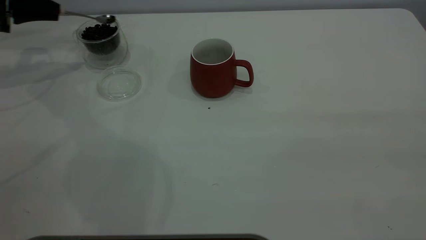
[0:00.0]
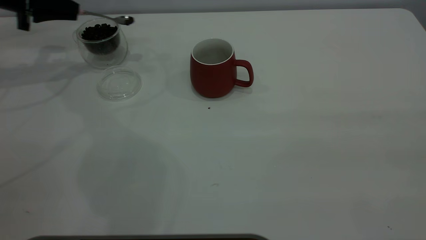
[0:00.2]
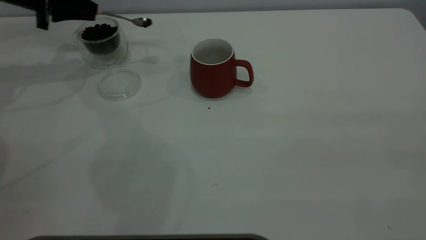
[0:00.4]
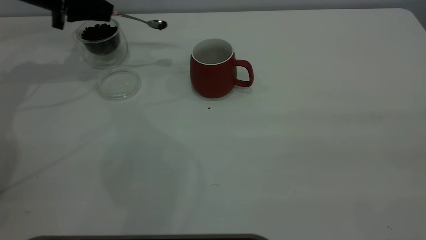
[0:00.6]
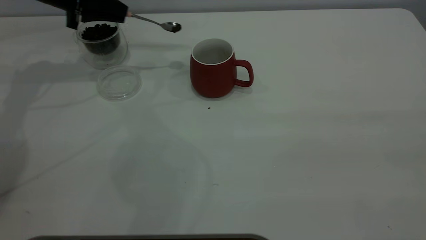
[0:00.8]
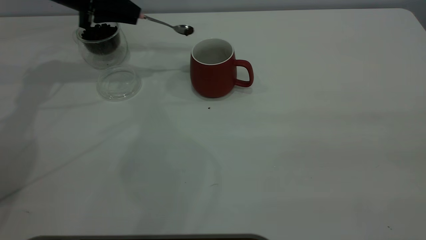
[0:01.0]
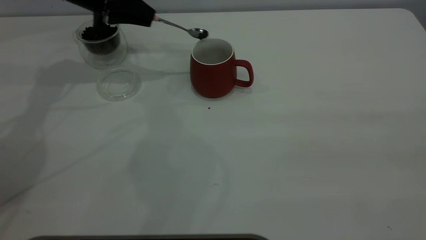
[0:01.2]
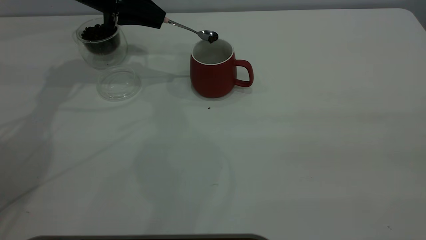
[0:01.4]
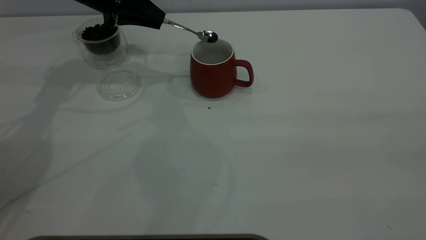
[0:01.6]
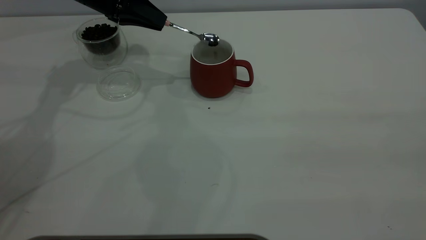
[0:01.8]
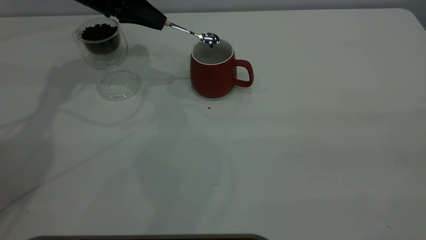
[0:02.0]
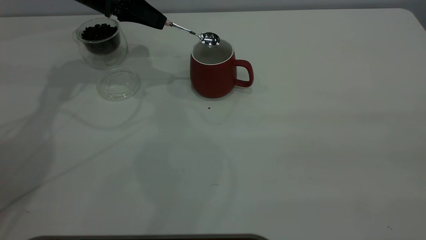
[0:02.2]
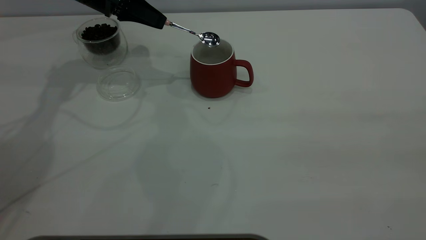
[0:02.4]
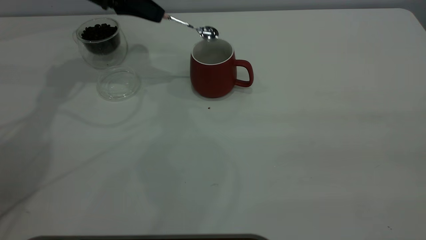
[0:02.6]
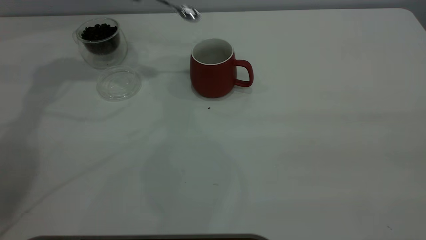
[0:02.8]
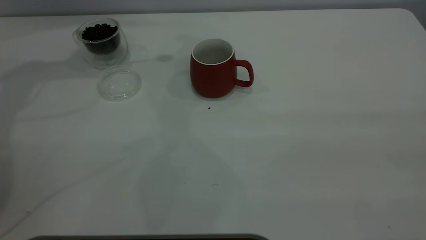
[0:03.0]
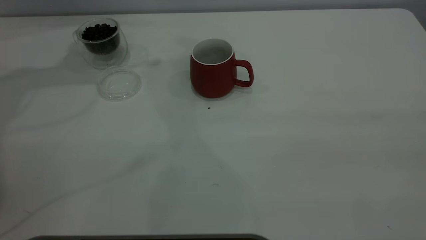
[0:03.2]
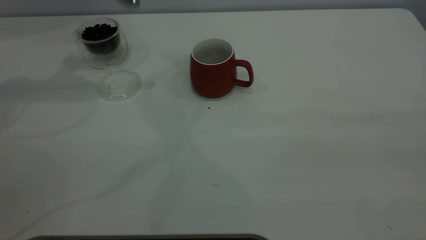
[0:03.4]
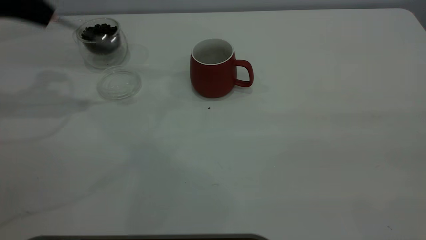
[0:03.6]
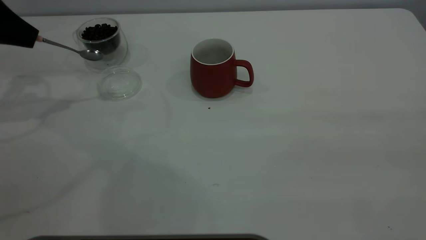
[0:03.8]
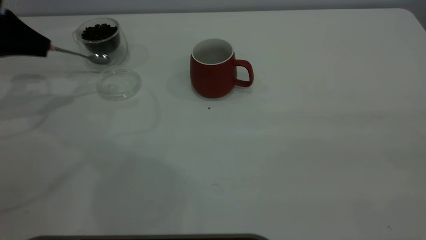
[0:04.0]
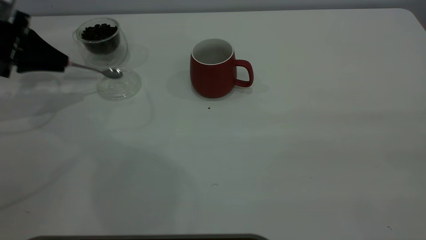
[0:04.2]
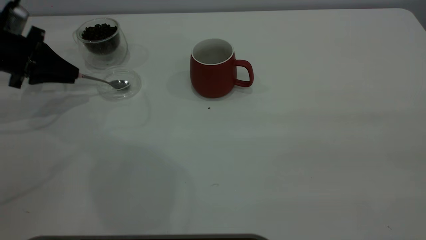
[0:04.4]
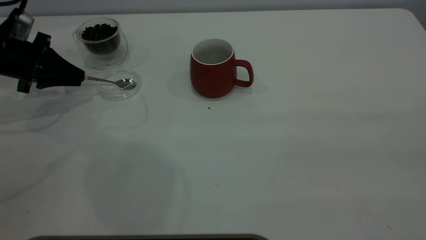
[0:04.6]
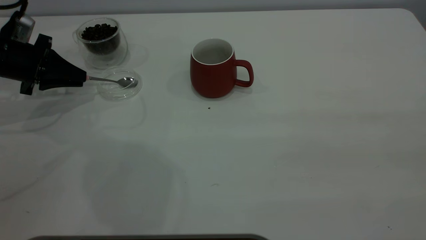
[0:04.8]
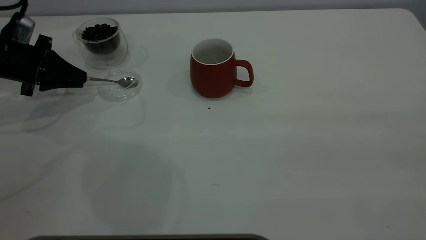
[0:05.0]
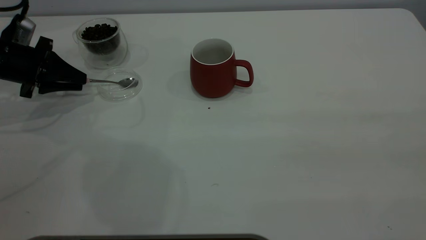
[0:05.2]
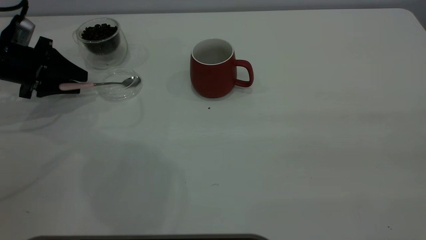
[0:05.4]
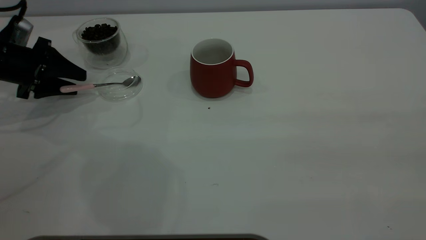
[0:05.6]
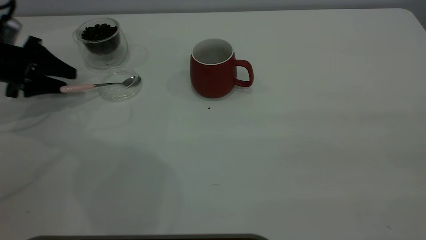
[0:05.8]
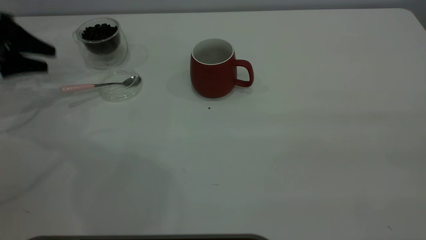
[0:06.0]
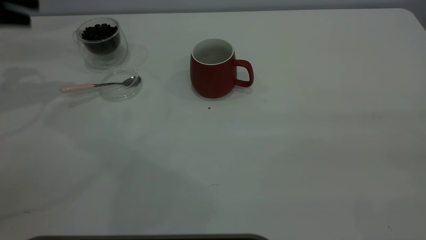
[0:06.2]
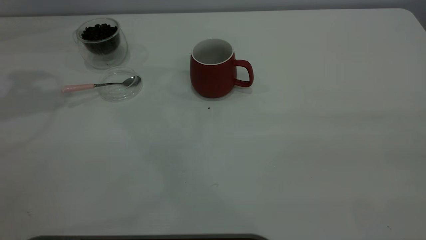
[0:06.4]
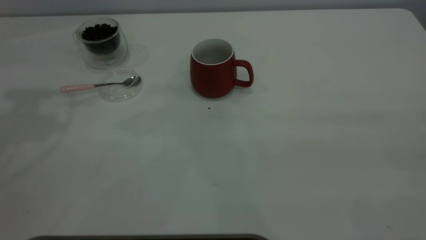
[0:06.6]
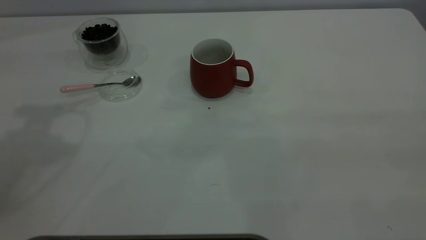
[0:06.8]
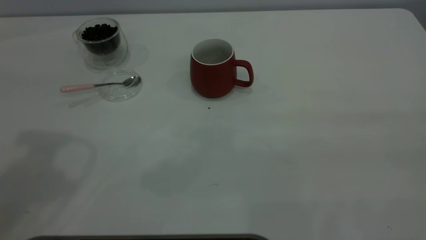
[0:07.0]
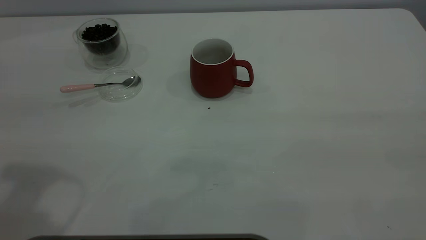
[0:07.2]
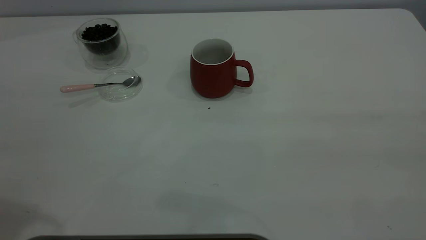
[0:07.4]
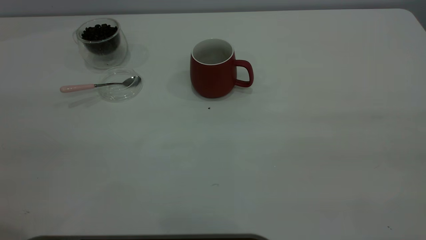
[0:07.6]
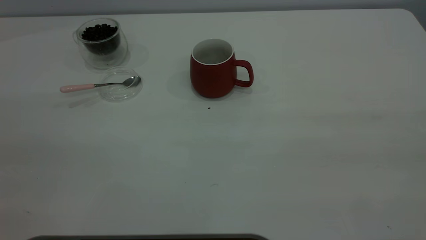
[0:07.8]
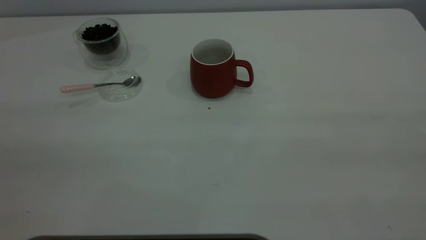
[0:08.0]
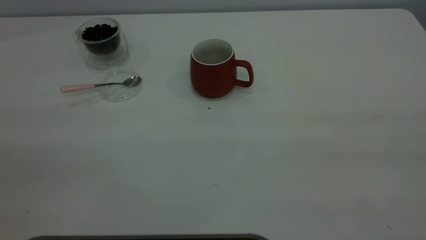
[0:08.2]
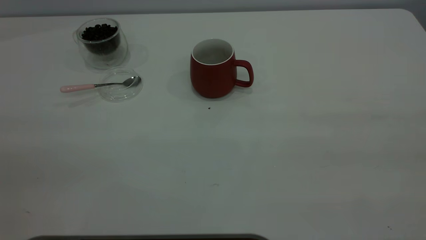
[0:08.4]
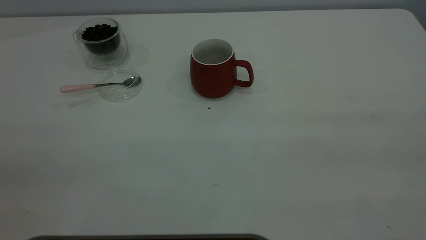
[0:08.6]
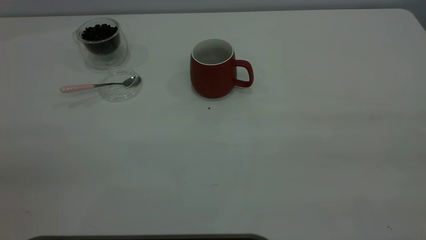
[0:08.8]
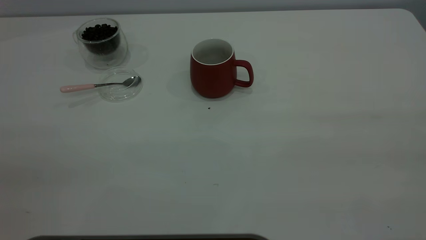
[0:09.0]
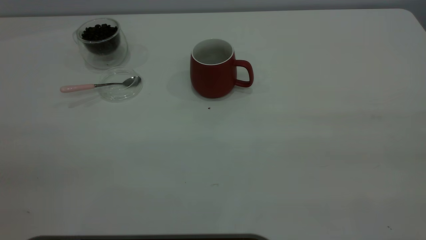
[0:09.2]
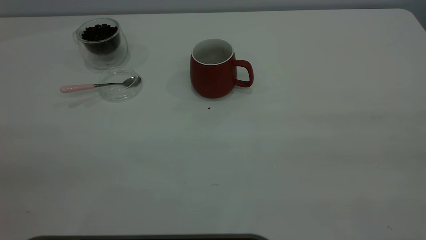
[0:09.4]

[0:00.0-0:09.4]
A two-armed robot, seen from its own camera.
Task of the whole recording: the right gripper place the red cup in the center of the table, the left gripper take the pink spoon from the cup lid and scoop out the coffee beans from the coffee cup and put them into the red cup, the left gripper put the spoon back into the cup lid.
Step, 0:00.0 to 0:02.6: Scoop a spoonful of beans into the cup.
Step, 0:02.8 to 0:06.0: Place the spoon back in its original place.
0:00.0 to 0:01.6: The left gripper moves to the right, some 20 cm.
0:01.6 to 0:03.2: The left gripper goes some 20 cm upward and to the left.
0:03.2 to 0:04.8: The left gripper travels downward by roughly 25 cm.
0:04.8 to 0:06.2: The left gripper shifts roughly 15 cm upward, and opens up.
0:06.2 to 0:07.8: The left gripper travels backward by approximately 35 cm.
